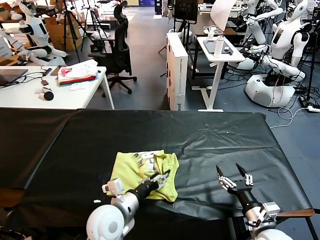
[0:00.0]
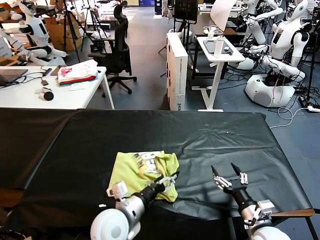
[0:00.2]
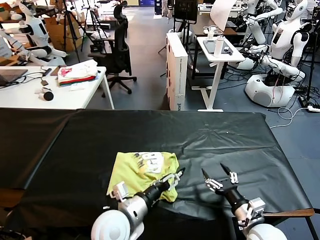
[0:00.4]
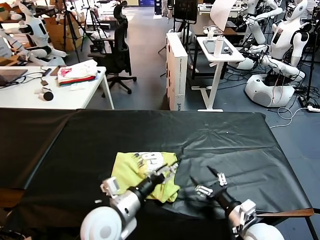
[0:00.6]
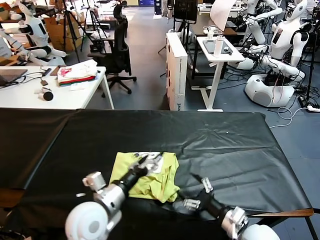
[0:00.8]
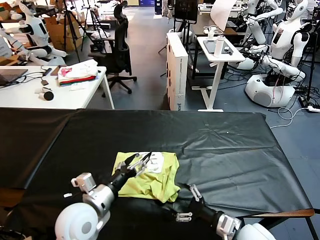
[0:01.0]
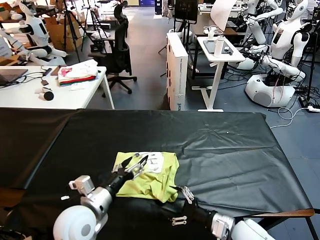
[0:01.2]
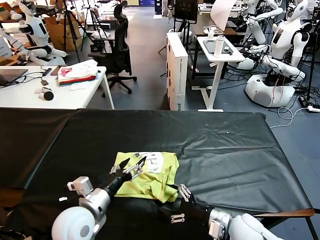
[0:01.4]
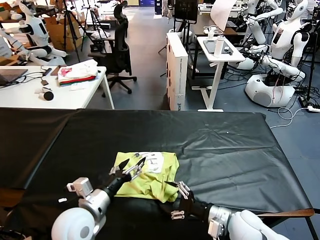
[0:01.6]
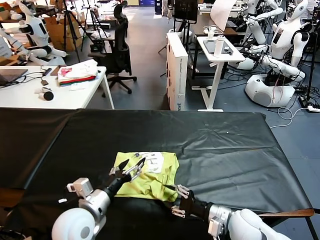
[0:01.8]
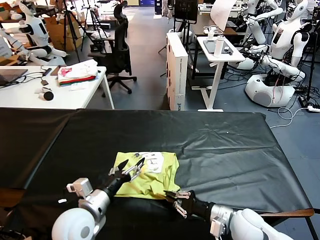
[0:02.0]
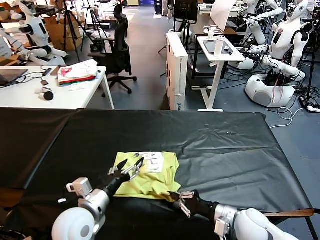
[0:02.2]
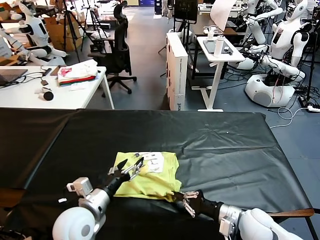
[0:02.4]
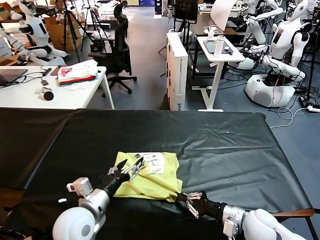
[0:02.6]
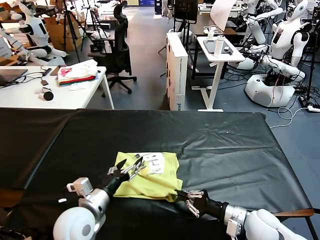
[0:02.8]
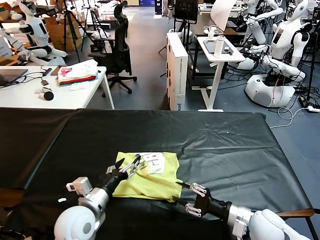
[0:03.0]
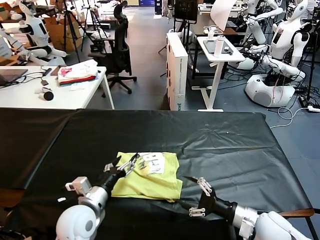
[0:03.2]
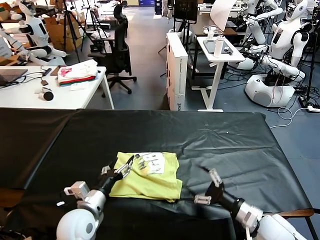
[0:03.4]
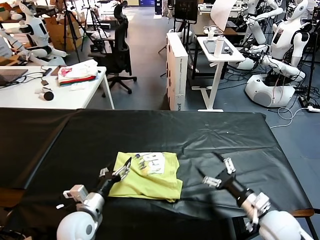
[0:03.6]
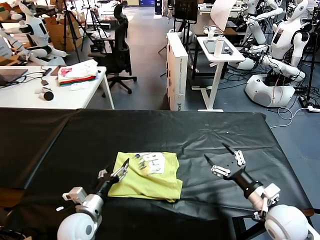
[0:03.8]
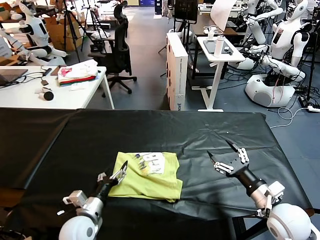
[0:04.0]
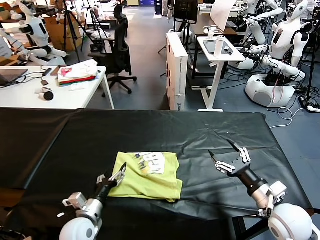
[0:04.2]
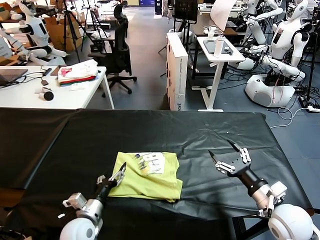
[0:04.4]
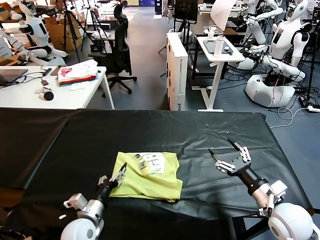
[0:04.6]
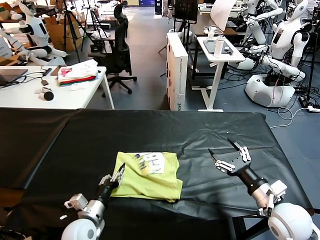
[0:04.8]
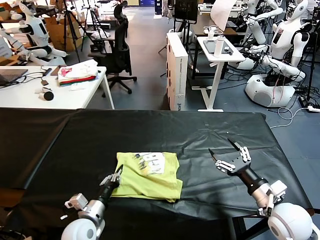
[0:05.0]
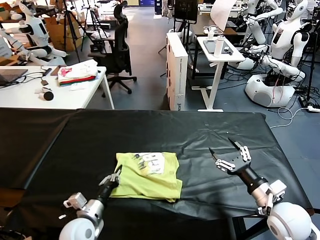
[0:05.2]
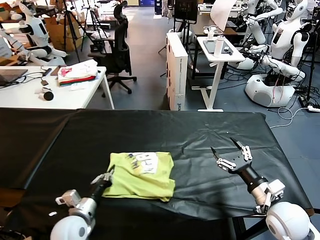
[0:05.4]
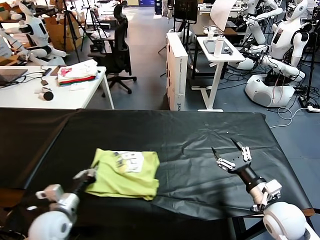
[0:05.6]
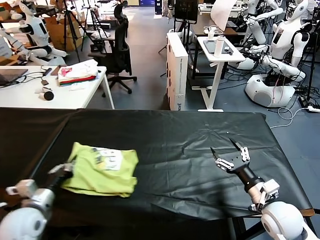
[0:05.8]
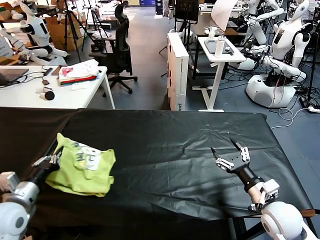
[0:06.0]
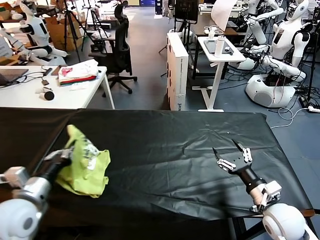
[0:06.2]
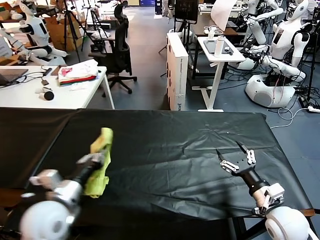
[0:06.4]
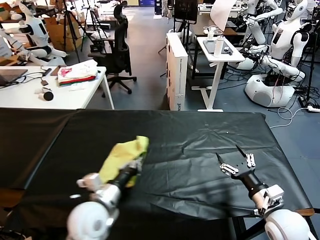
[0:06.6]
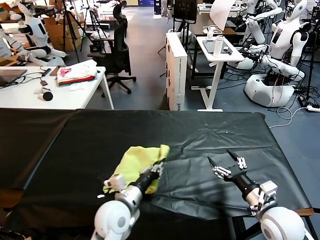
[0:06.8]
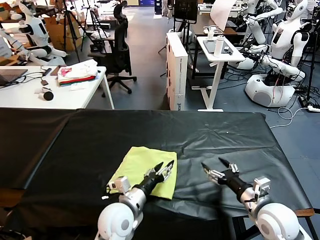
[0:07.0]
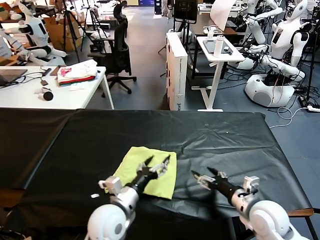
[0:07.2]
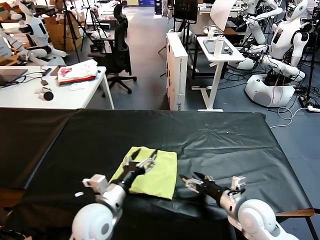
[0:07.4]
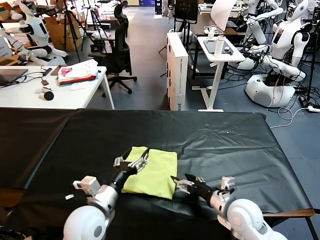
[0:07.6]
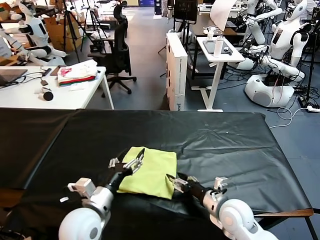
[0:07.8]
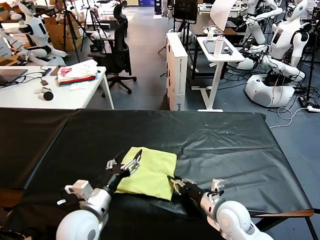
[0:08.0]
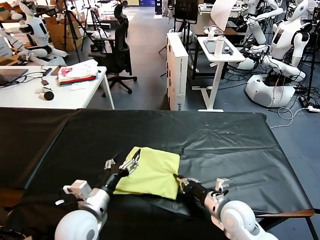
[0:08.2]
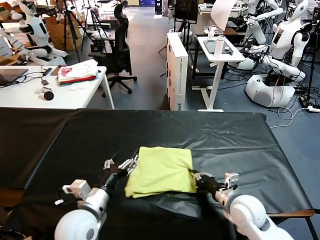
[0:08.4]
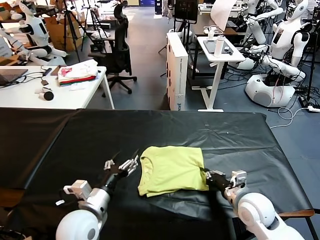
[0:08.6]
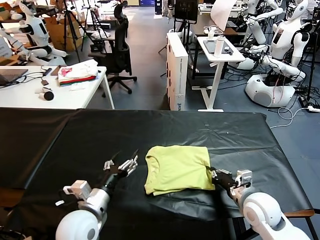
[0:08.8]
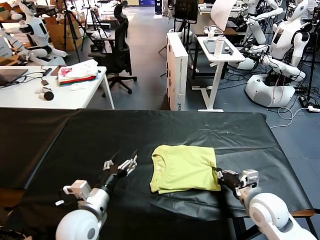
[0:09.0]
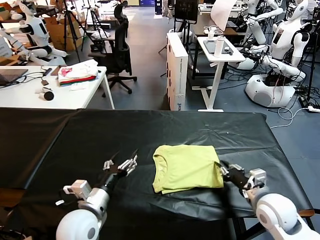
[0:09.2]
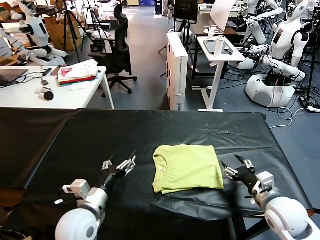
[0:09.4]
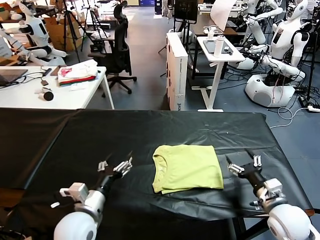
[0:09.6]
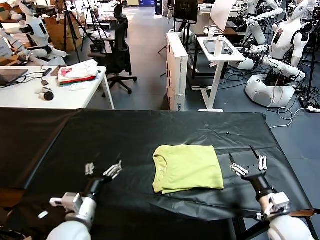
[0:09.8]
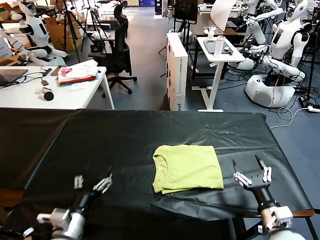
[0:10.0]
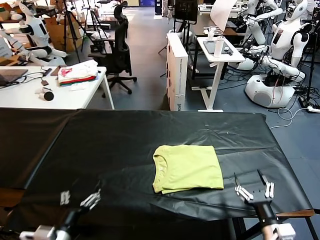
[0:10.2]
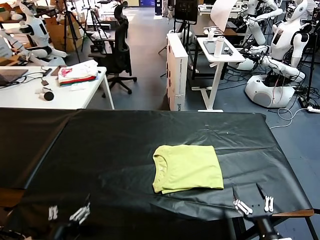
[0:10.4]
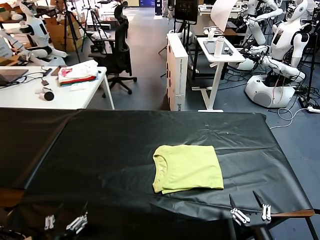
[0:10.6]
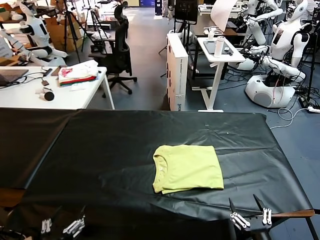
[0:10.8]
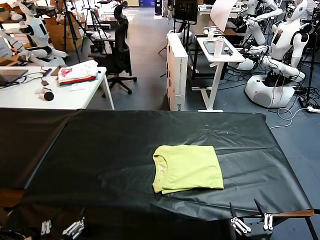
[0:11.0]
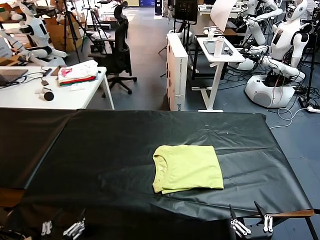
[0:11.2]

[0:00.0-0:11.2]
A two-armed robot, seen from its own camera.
Task of the whole recording: fold and organize the clothes.
Step, 0:00.4 to 0:07.0: Flip the folded clothes over with left gripper.
Step, 0:07.2 to 0:09.2: Drag the clothes to the center of the table.
0:00.0 to 0:01.6: The left gripper goes some 5 cm to the left; the right gripper ends up some 5 cm from where it was.
0:01.6 to 0:03.2: The right gripper goes some 5 cm to the right, and closes, then reopens.
0:03.2 to 0:04.8: The left gripper moves downward, about 10 cm, and closes its fingers. The right gripper changes place by some 5 cm.
0:04.8 to 0:06.4: The left gripper shifts approximately 15 cm upward, and closes up.
0:06.4 to 0:08.0: The left gripper heads to the right, covering about 10 cm, and opens its fingers. Meanwhile the right gripper heads to the left and downward, covering roughly 15 cm, and closes.
0:08.0 to 0:09.6: The right gripper shifts about 15 cm to the right, and opens.
0:09.6 to 0:11.2: The right gripper travels backward by roughly 20 cm. The left gripper heads backward and to the left, covering some 20 cm.

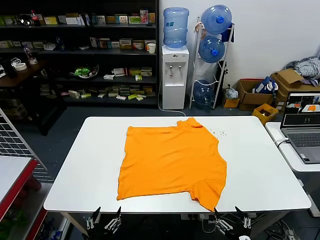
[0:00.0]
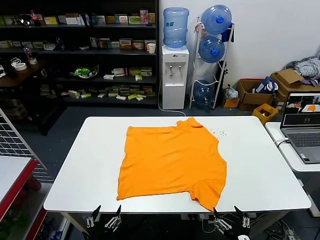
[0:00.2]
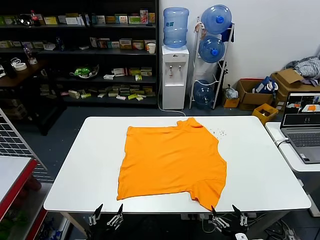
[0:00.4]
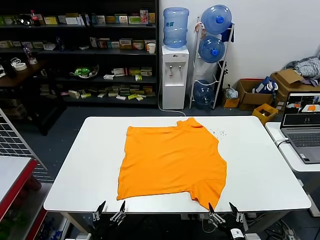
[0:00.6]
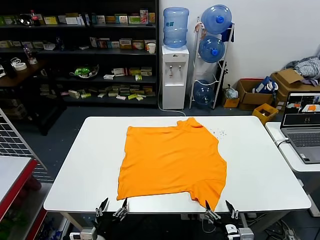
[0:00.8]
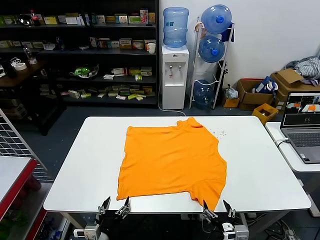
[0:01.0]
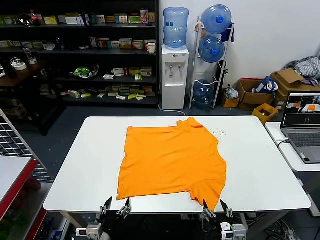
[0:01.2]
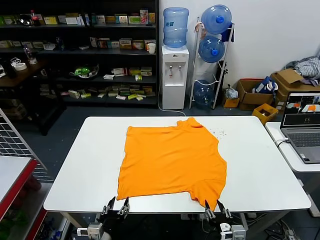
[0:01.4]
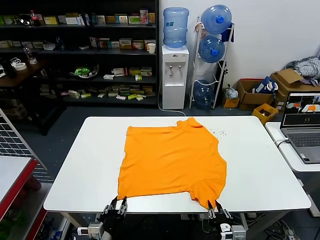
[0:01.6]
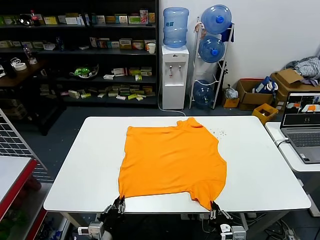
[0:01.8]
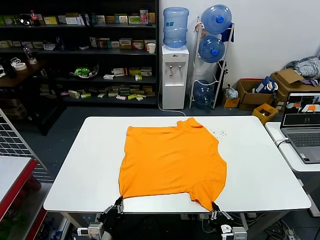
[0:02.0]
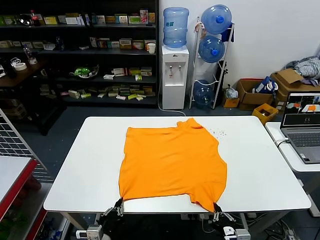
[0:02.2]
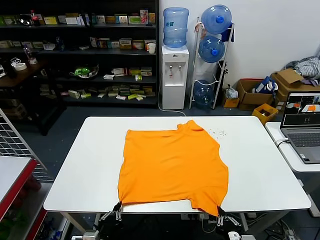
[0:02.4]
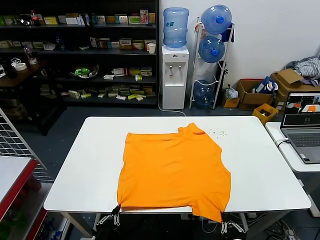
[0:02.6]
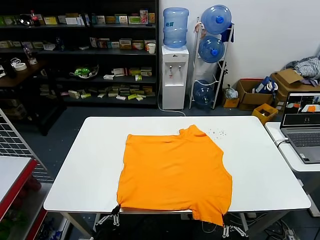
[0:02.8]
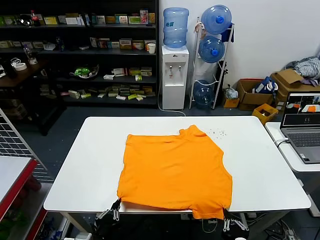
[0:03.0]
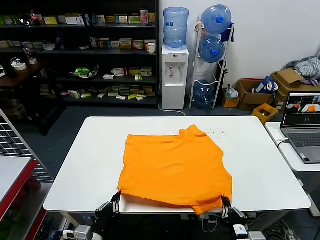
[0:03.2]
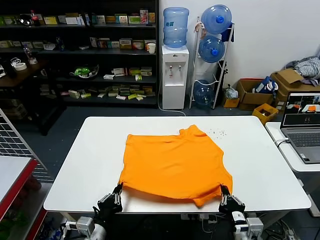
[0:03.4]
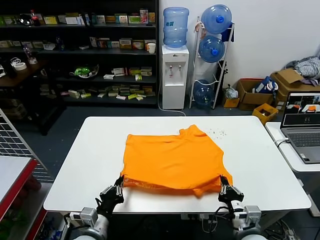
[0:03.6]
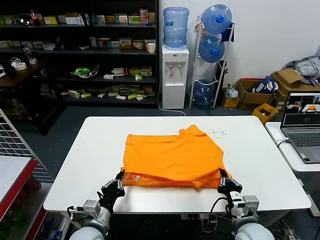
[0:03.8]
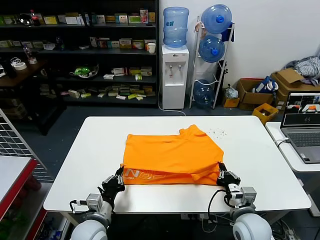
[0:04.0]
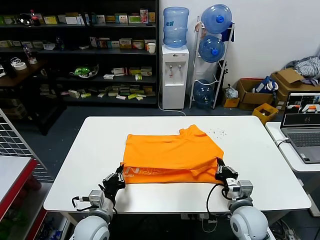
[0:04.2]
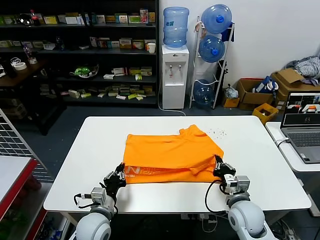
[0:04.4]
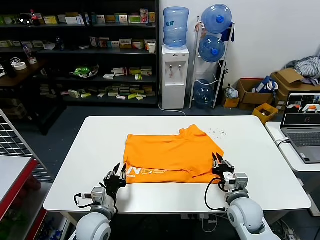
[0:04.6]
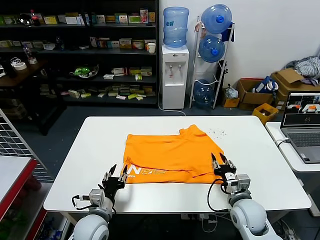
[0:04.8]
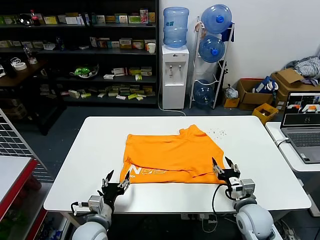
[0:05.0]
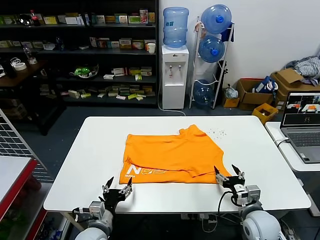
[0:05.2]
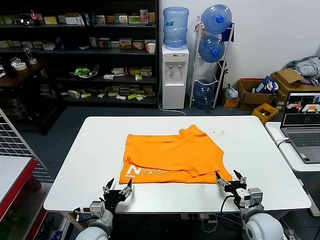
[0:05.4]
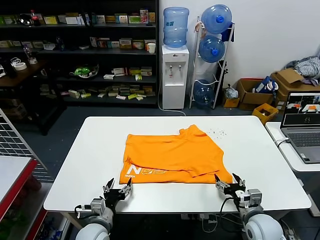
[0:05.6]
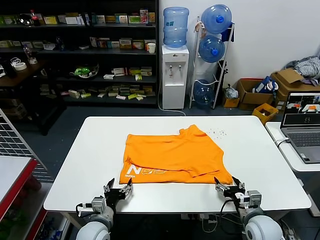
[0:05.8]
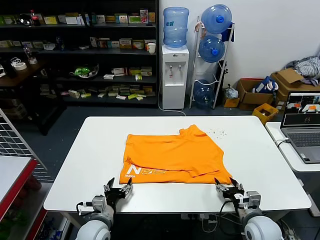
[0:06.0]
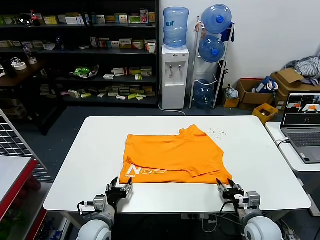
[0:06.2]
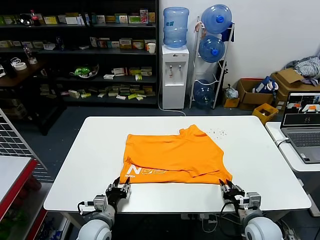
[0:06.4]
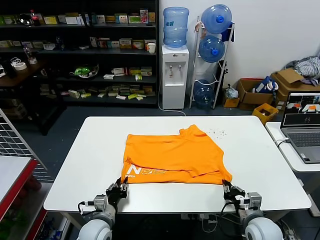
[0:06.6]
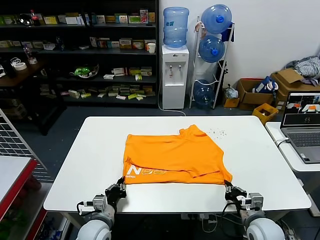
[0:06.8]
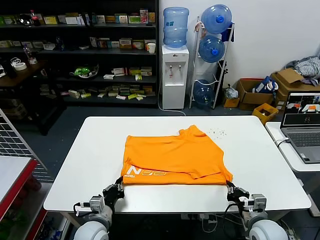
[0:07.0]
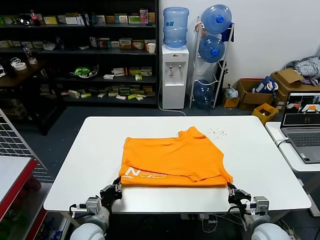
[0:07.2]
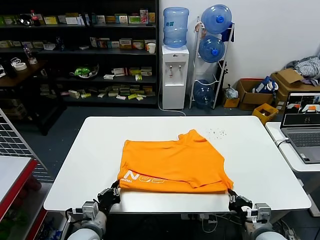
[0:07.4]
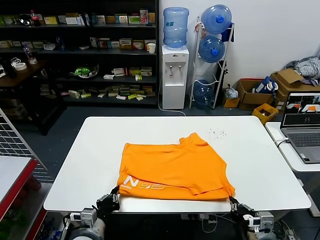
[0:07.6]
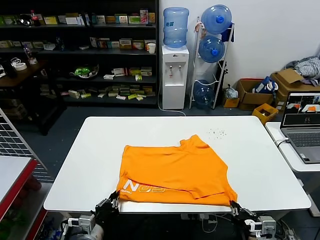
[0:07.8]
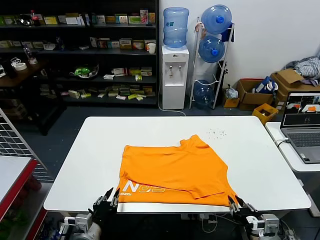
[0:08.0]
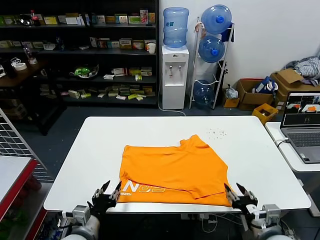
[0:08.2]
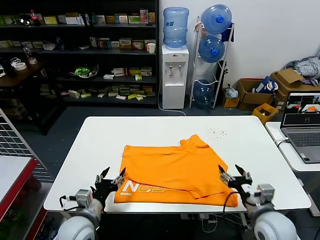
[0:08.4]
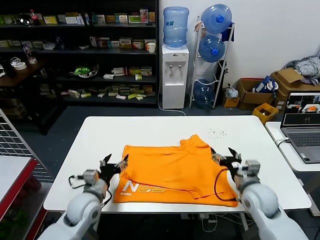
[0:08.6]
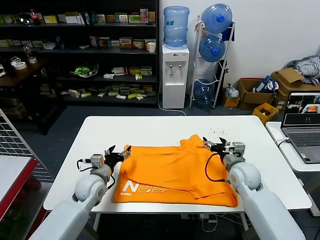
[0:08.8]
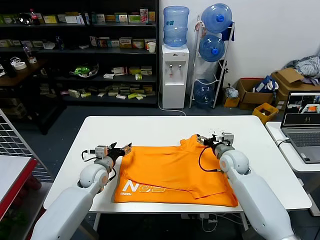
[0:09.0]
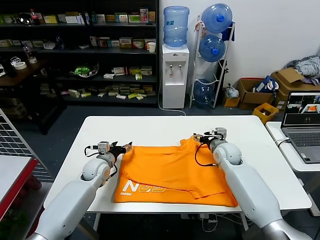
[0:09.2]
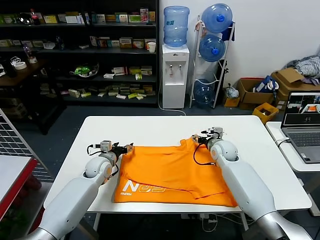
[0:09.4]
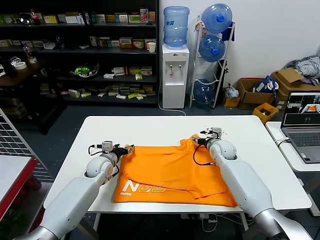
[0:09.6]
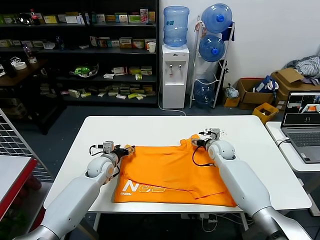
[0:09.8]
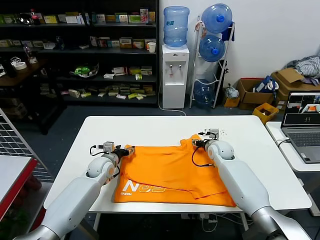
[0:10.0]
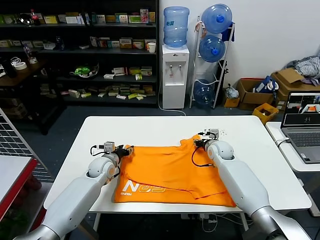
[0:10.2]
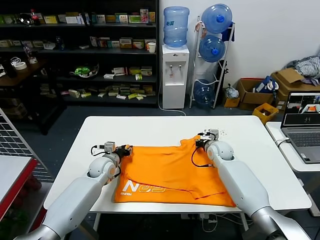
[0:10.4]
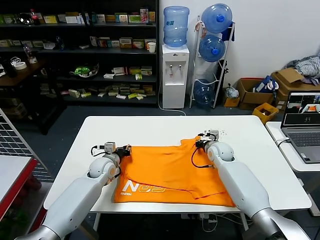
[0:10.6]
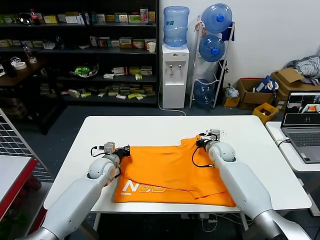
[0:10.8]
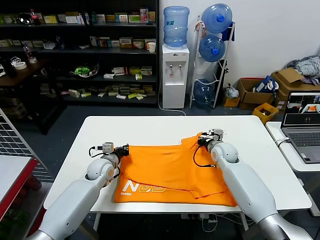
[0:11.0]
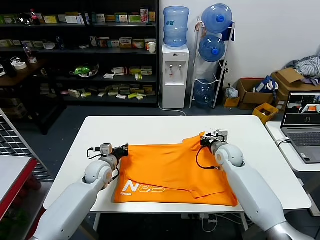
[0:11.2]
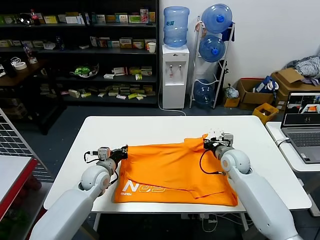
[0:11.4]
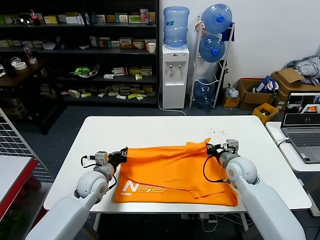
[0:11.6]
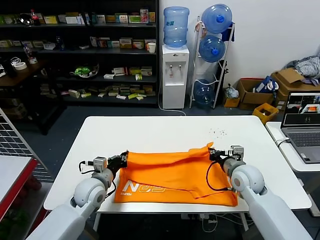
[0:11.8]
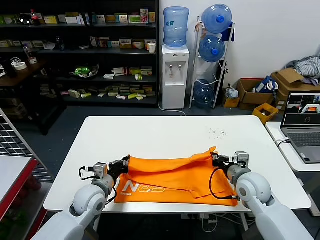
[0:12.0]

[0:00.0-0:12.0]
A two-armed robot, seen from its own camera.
Task of the whole recording: fold and organize the clothes.
Step, 0:00.0 to 0:02.2: use both grippers simultaneously to clamp the lower edge of the clothing fabric.
Step, 0:02.4 to 0:05.0: use both grippers to drag the lower edge of the fabric forward and fold it over the upper edge.
Step, 0:05.2 to 0:08.2: Drag the clothes downward with both gripper.
Step, 0:08.4 to 0:11.0: use both grippers simultaneously to clamp the upper edge of the clothing fabric.
0:01.6 to 0:03.0: Both grippers travel together upward, roughly 5 cm. The left gripper closes its fingers.
0:03.0 to 0:04.4: The grippers both shift forward by approximately 15 cm.
0:04.4 to 0:06.0: The right gripper moves to the right, approximately 5 cm, and opens up; the left gripper is displaced downward by about 5 cm, and opens its fingers.
0:06.0 to 0:07.6: The right gripper heads backward, covering roughly 10 cm, and closes its fingers. The left gripper is displaced backward by about 5 cm, and closes its fingers.
0:07.6 to 0:09.0: The grippers both shift forward by approximately 25 cm. The right gripper opens up, while the left gripper opens.
0:09.0 to 0:10.4: The left gripper shifts by approximately 5 cm, and closes up; the right gripper is displaced forward by about 5 cm, and closes up.
0:10.4 to 0:12.0: The grippers both shift backward by approximately 15 cm. The left gripper closes its fingers.
